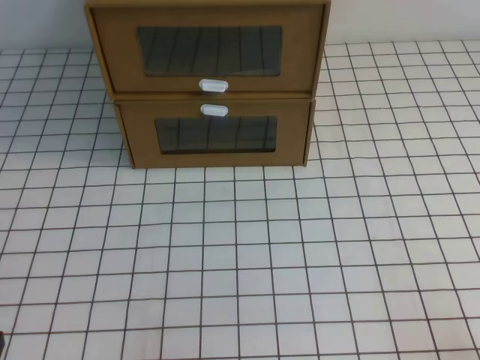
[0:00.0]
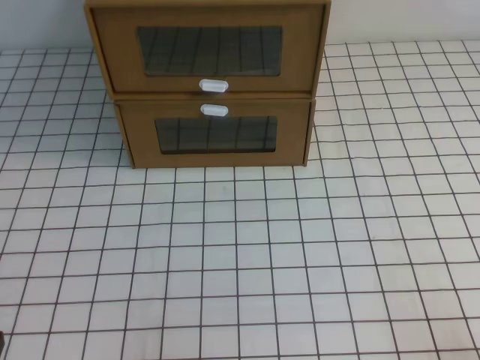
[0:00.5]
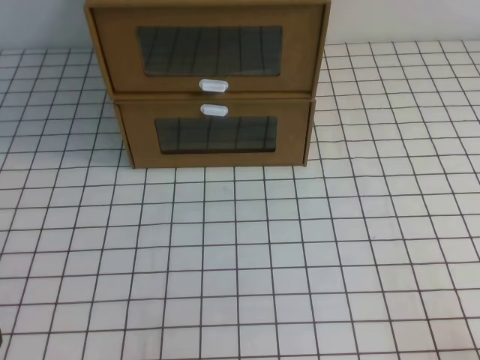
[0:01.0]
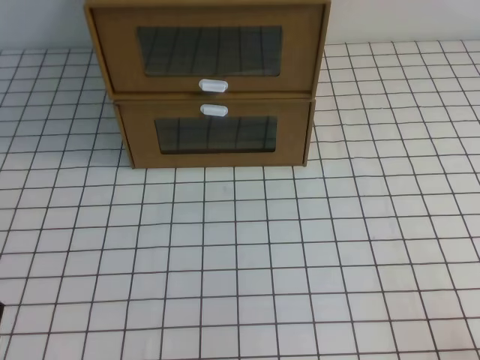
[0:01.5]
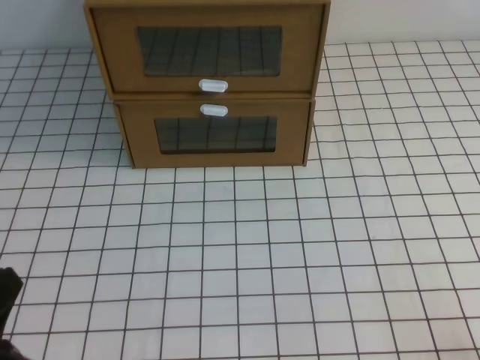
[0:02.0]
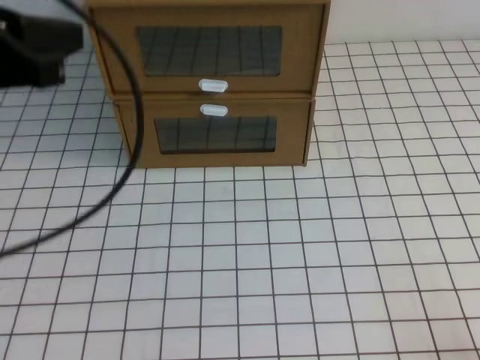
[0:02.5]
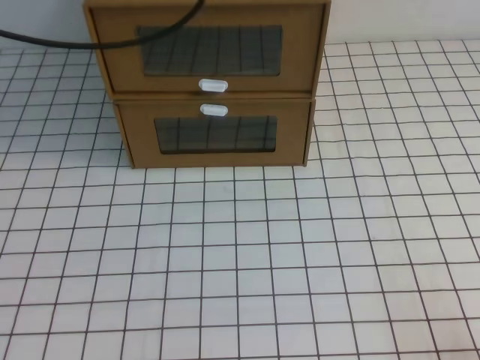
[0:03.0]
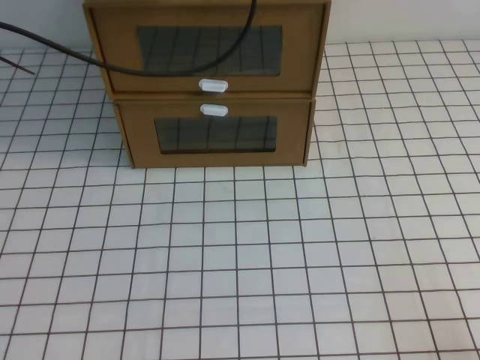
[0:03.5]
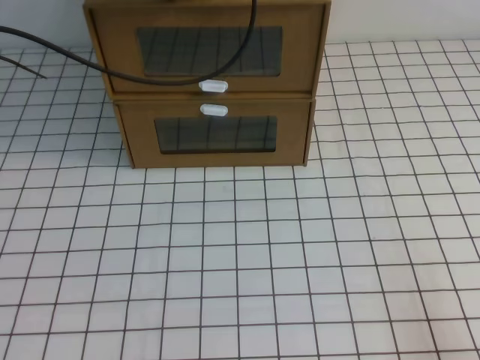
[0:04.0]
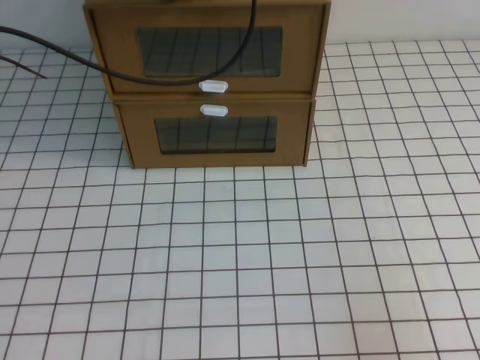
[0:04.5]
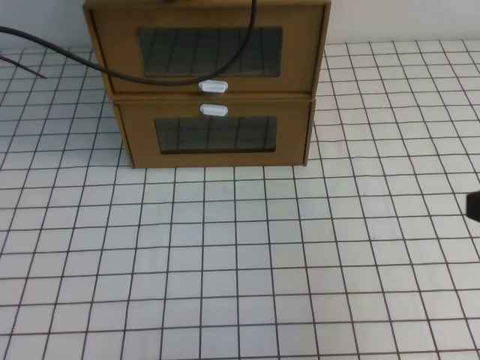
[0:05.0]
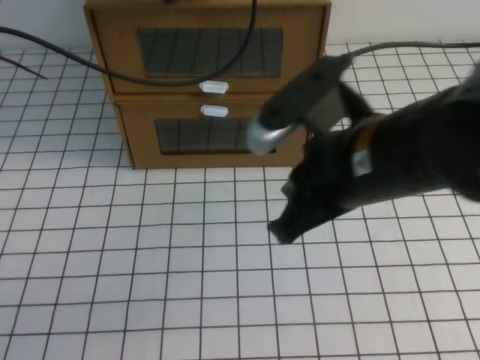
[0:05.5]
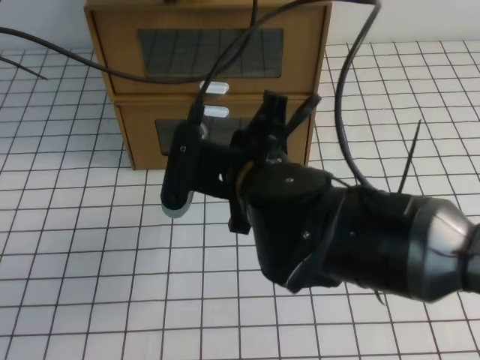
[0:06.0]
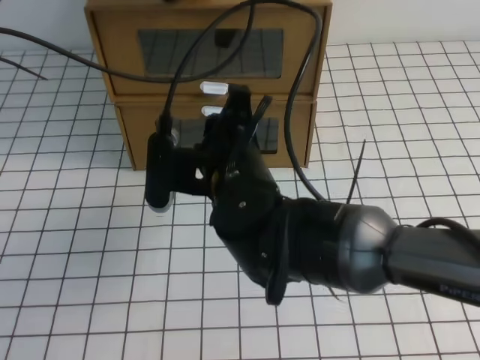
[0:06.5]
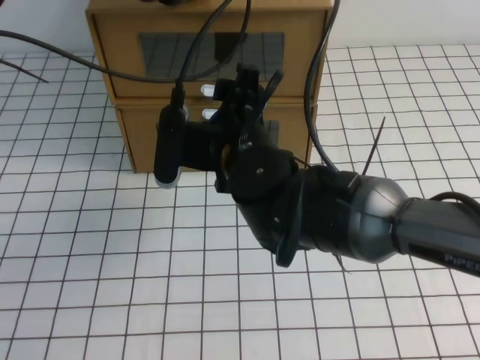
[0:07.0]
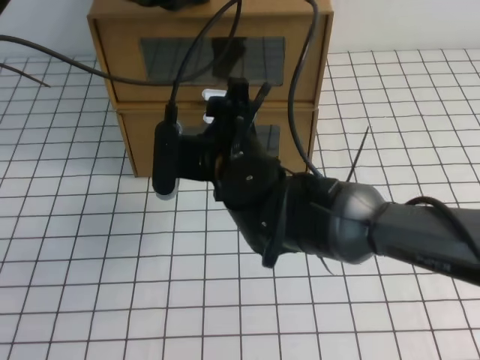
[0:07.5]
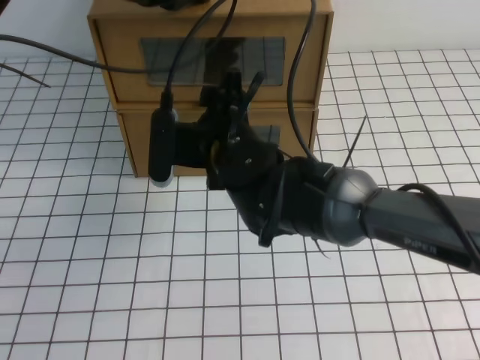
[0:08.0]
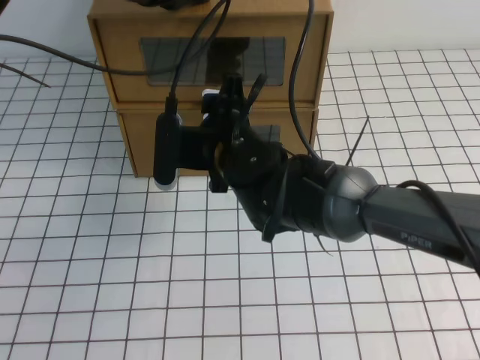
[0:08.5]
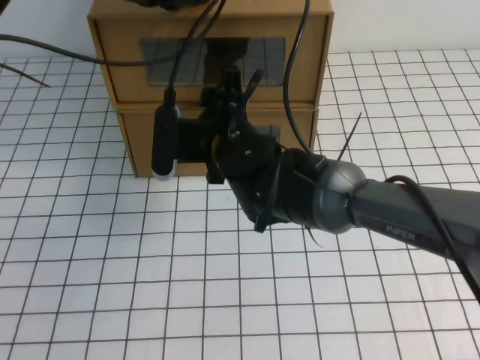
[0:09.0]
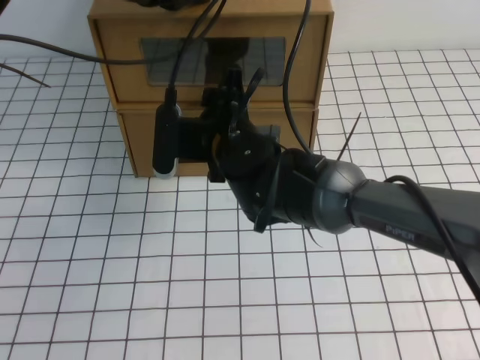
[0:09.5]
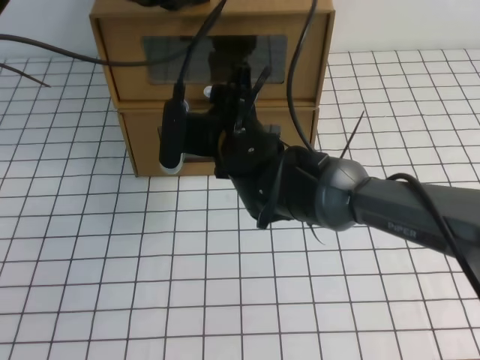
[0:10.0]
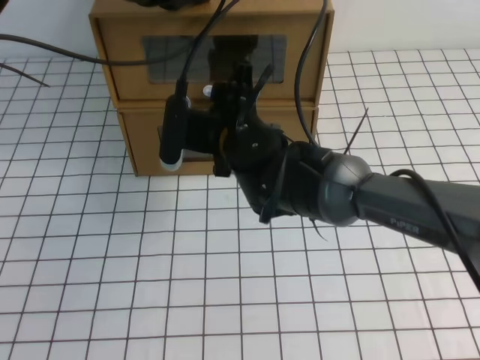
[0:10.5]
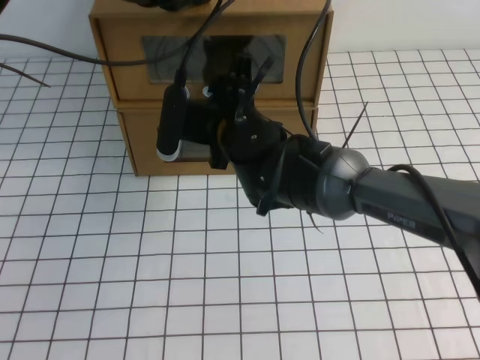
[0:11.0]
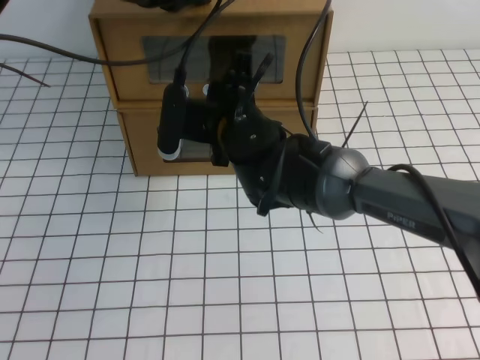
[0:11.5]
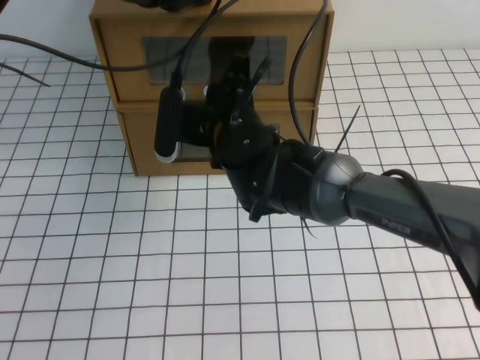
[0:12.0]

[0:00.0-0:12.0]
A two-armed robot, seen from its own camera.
Task of the whole recording: open the shoebox on the white tablecloth.
0:00.0 to 0:02.0: The left gripper heads upward, covering some 10 cm.
0:02.0 to 0:04.0: The left gripper travels forward by about 35 cm.
0:04.0 to 0:06.0: The right gripper goes approximately 35 cm to the left and forward.
0:06.0 to 0:08.0: The right gripper goes about 10 cm forward, and opens up.
0:08.0 to 0:10.0: There are only small adjustments of the grippers.
0:10.0 to 0:12.0: The right gripper closes.

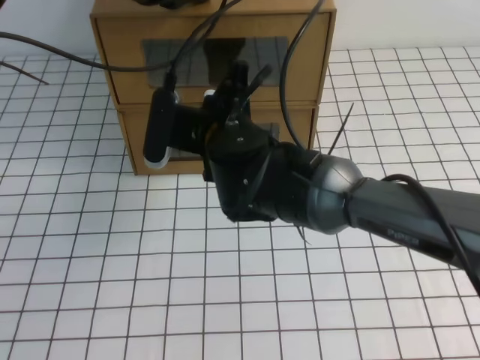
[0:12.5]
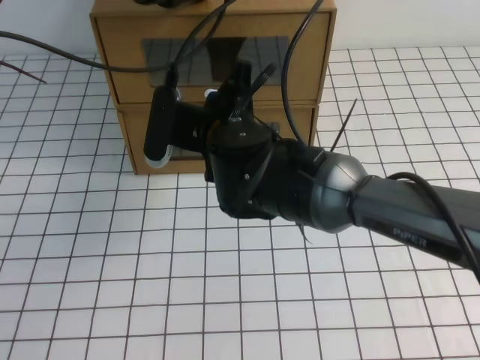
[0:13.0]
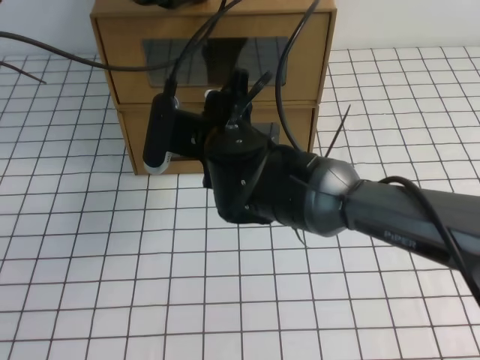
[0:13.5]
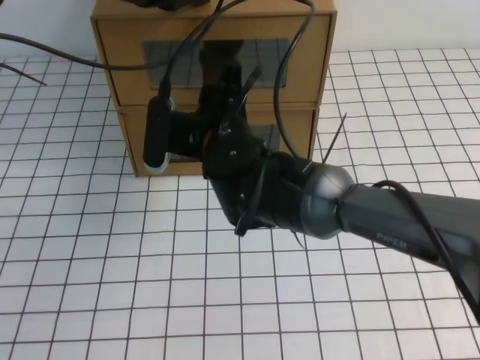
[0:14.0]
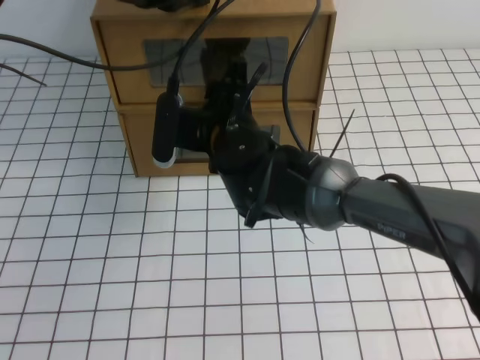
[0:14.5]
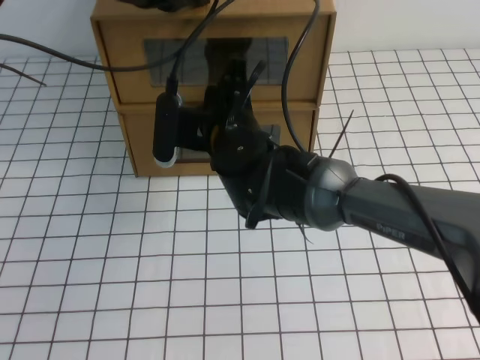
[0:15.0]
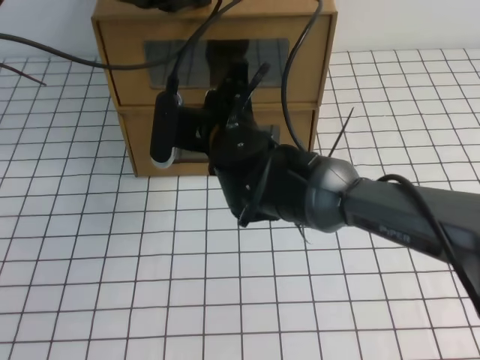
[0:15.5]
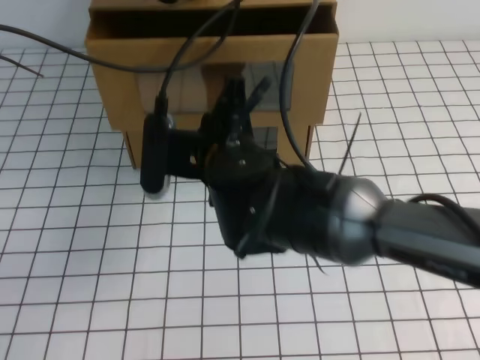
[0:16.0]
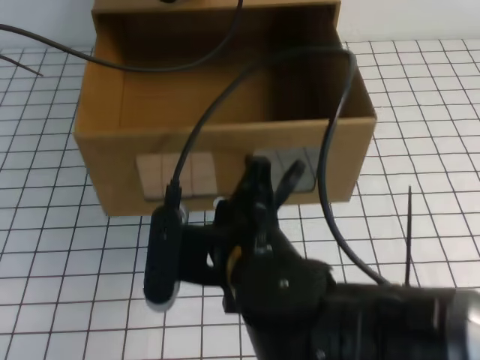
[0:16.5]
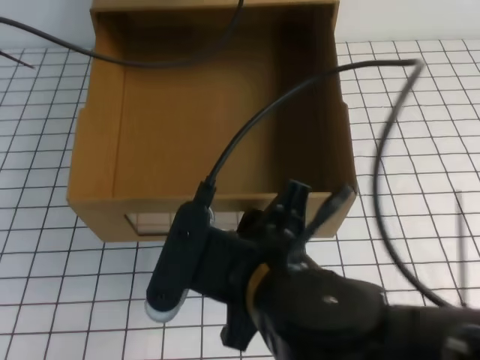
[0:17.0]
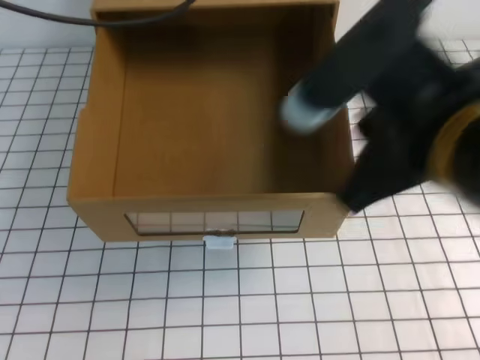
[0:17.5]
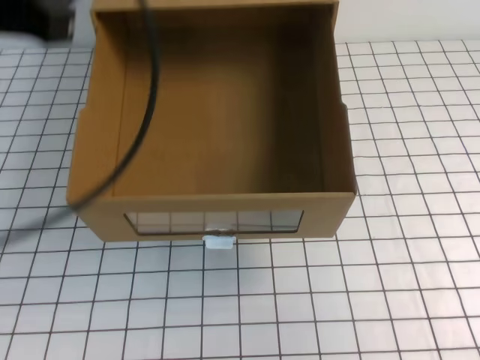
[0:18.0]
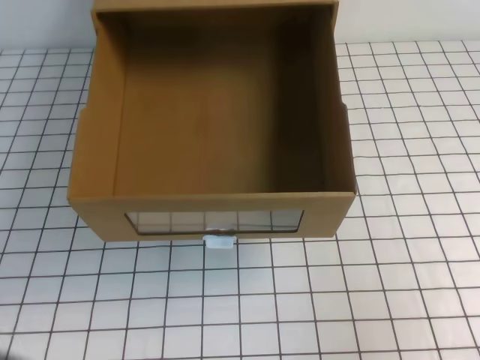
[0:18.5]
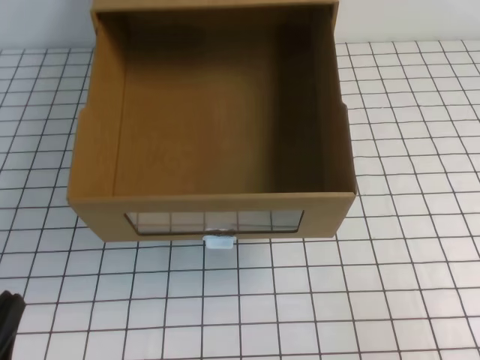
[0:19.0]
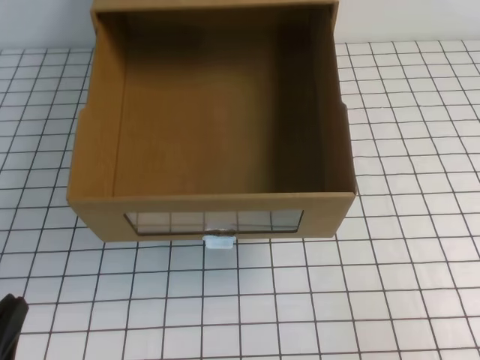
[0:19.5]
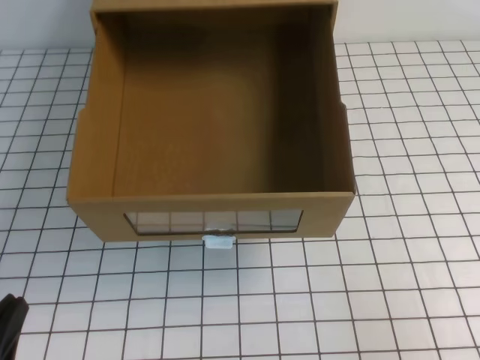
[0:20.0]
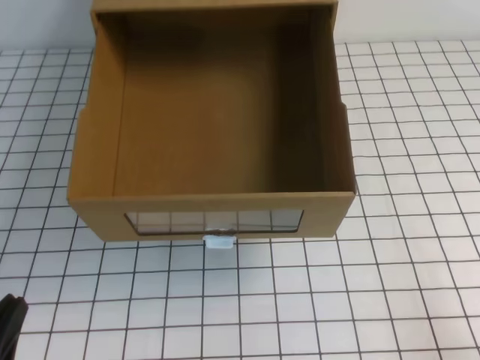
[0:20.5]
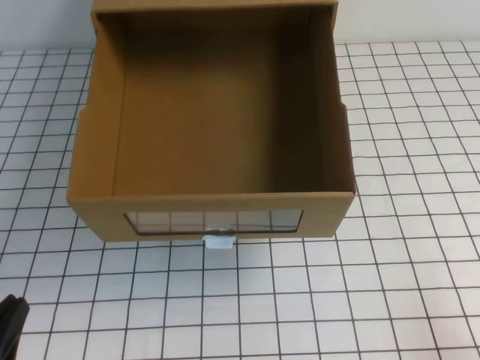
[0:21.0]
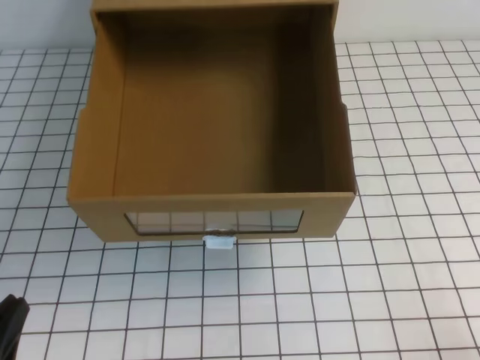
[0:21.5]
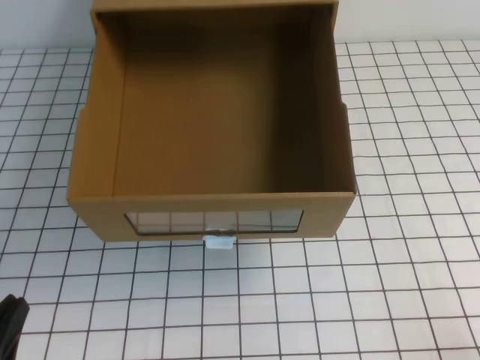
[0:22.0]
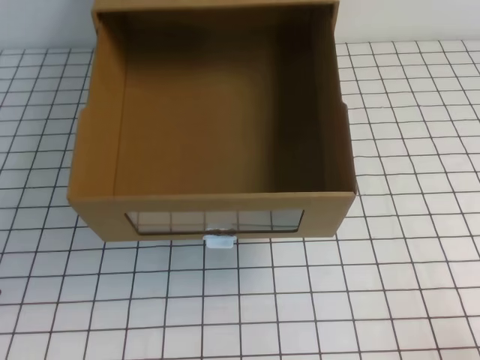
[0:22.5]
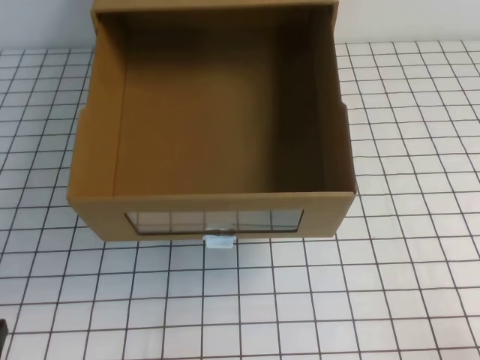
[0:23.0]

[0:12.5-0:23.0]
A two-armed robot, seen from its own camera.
Task of the whole recording: open the shoebox on the white tablecloth.
Step, 0:12.5 to 0:23.0: Open the shoe box.
0:12.5 to 0:14.5: The right gripper opens.
0:14.5 to 0:16.5: The right gripper moves backward, some 15 cm, and closes.
0:16.5 to 0:19.0: The left gripper goes approximately 40 cm backward and downward. The right gripper goes some 30 cm to the right, and opens, then closes once more.
0:19.0 to 0:21.0: The right gripper is displaced downward by roughly 5 cm.

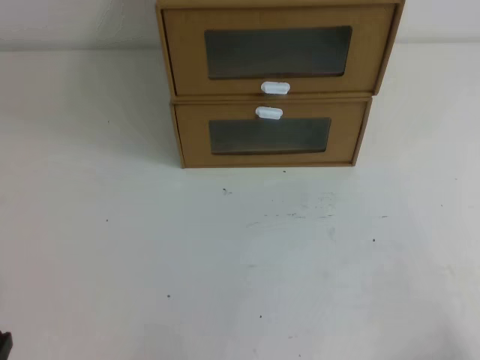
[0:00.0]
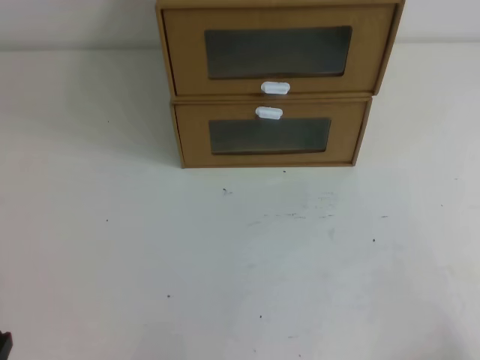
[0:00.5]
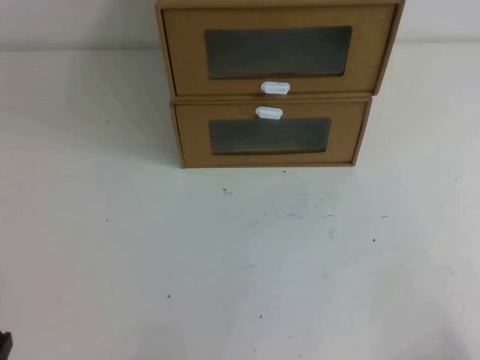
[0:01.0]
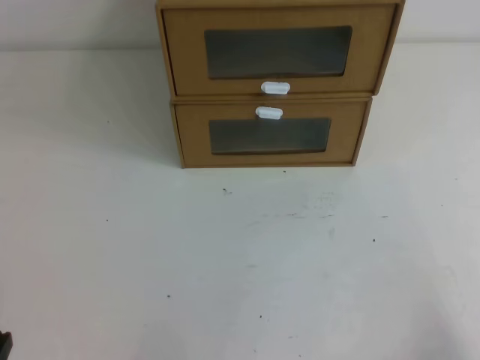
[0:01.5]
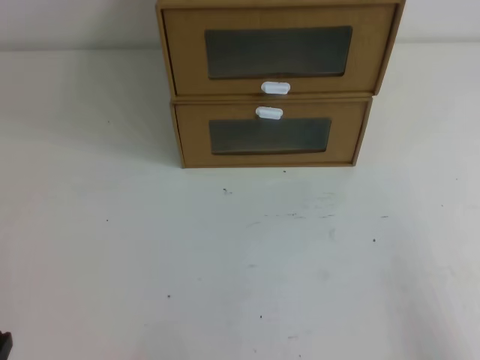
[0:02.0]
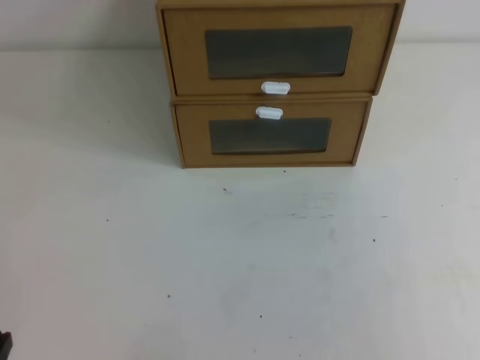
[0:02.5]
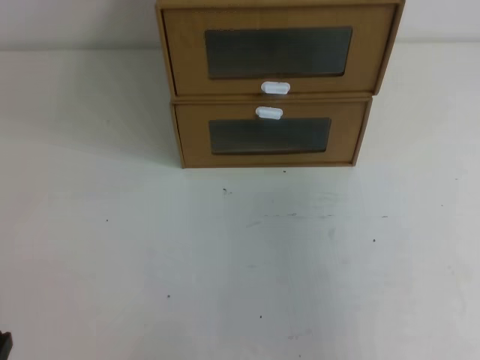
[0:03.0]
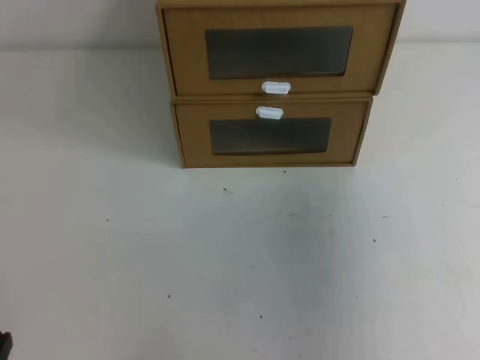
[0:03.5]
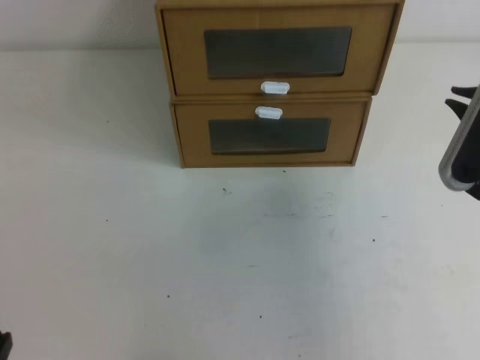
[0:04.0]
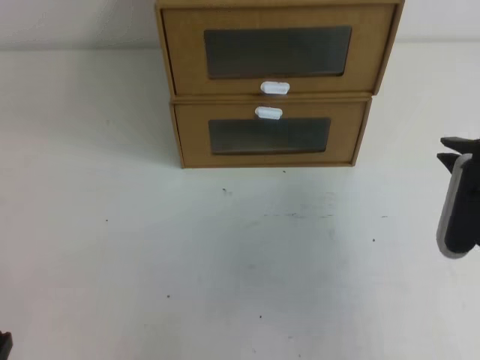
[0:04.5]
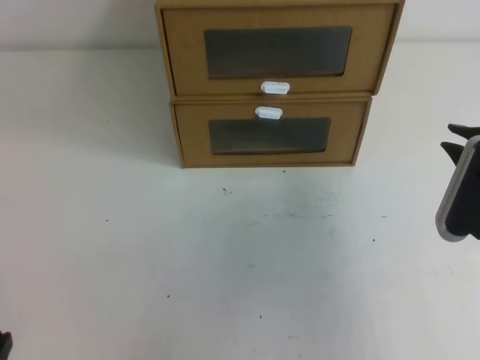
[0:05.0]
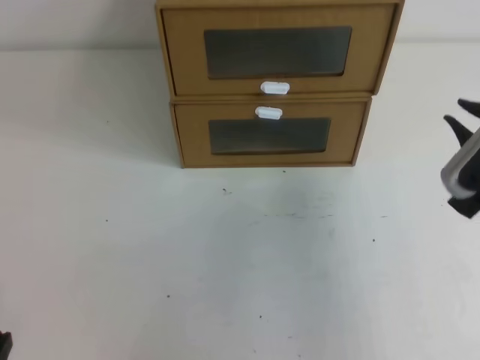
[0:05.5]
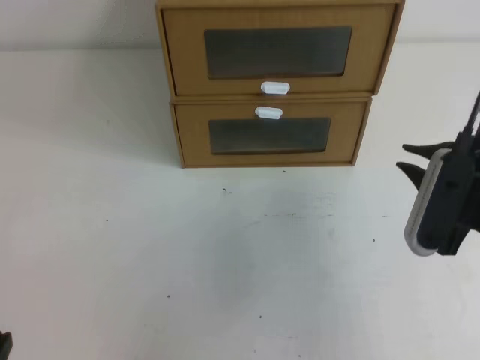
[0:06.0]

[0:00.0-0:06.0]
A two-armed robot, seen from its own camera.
Task of the whole recording: open the shoebox on the table.
0:02.0 to 0:04.0: The right gripper moves forward, upward and to the left, some 20 cm.
0:04.0 to 0:06.0: The right gripper shifts by about 5 cm.
